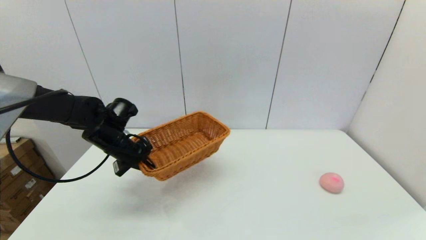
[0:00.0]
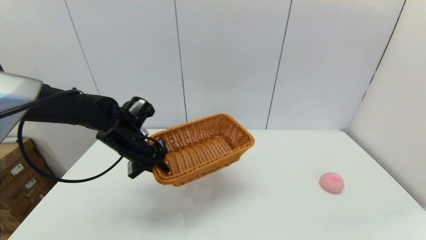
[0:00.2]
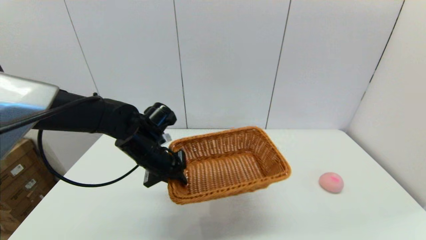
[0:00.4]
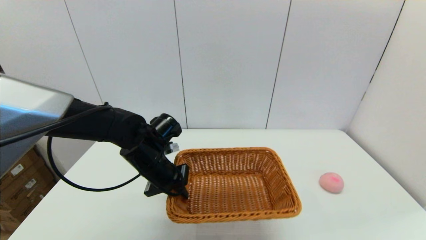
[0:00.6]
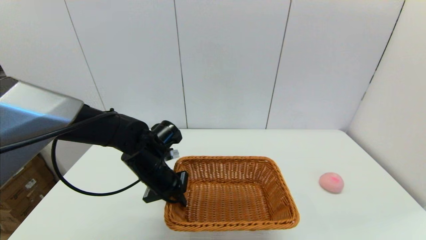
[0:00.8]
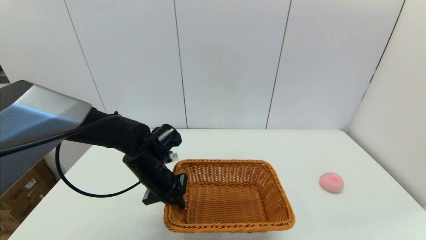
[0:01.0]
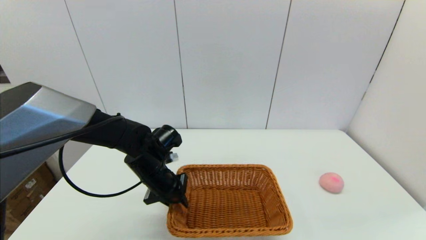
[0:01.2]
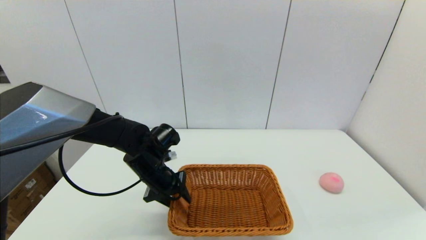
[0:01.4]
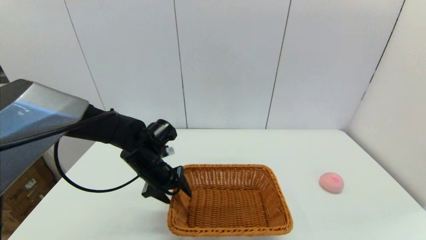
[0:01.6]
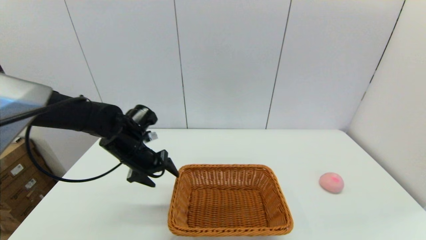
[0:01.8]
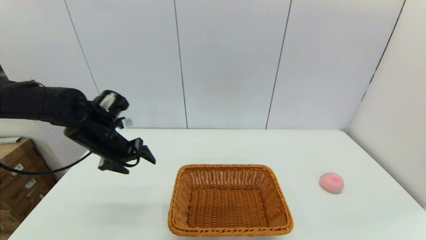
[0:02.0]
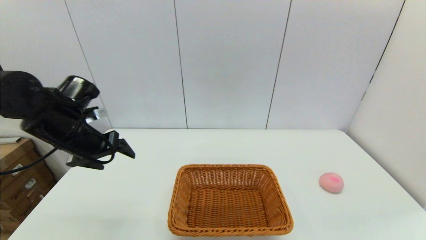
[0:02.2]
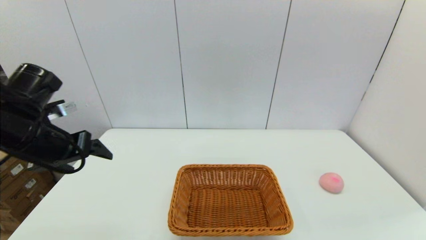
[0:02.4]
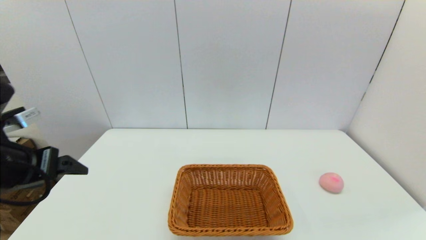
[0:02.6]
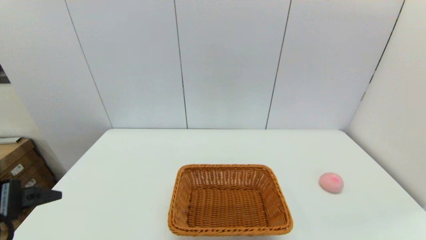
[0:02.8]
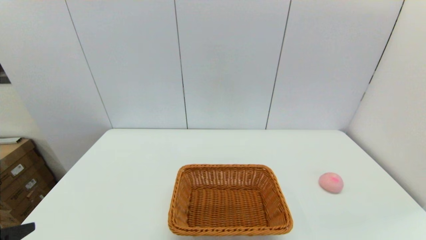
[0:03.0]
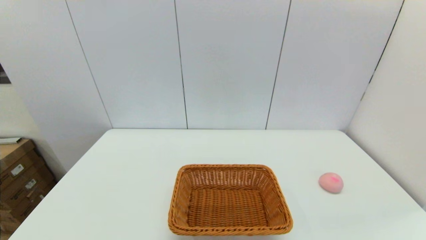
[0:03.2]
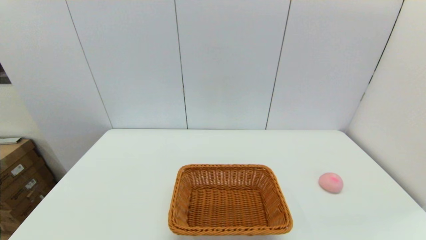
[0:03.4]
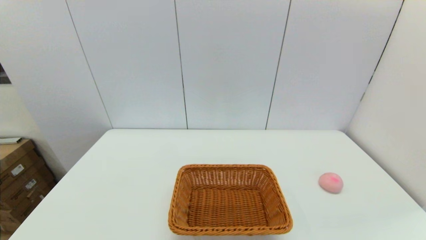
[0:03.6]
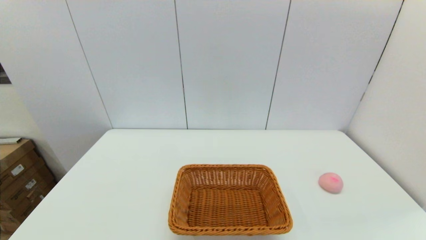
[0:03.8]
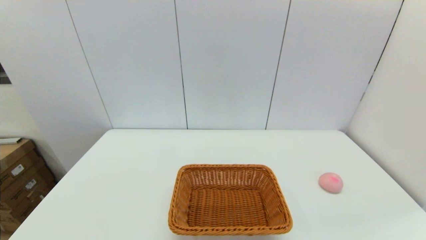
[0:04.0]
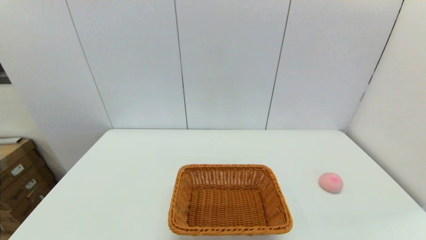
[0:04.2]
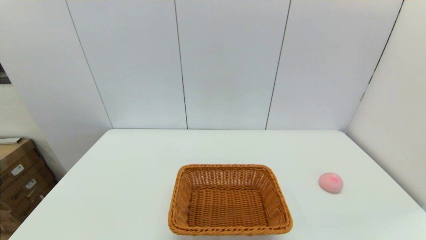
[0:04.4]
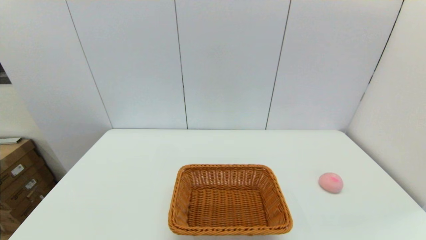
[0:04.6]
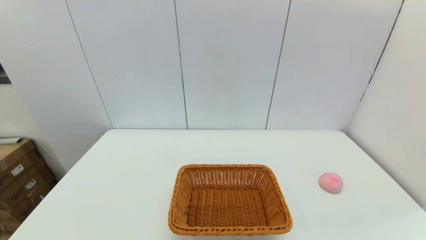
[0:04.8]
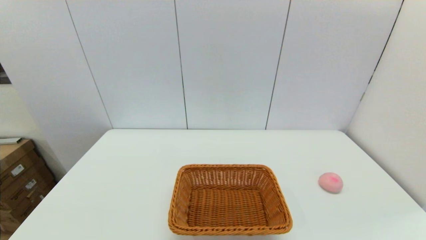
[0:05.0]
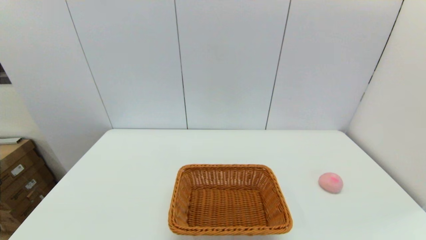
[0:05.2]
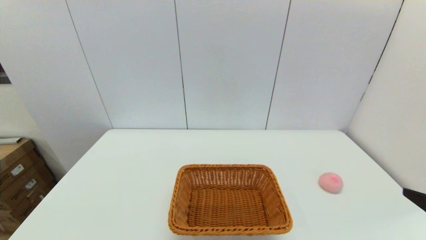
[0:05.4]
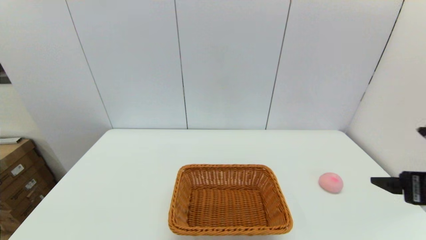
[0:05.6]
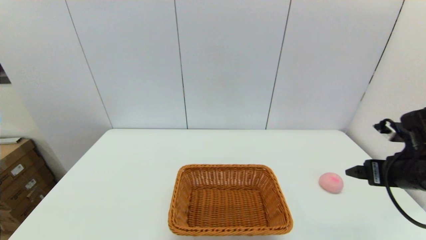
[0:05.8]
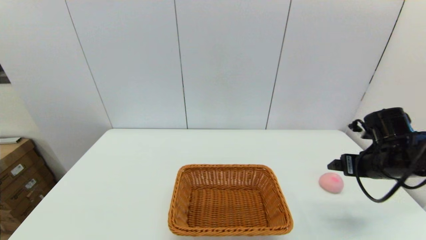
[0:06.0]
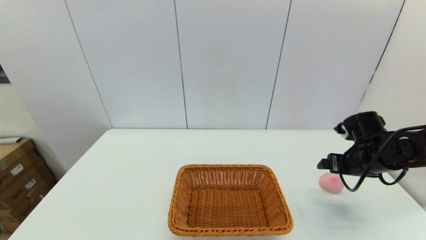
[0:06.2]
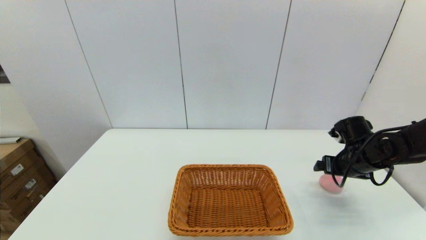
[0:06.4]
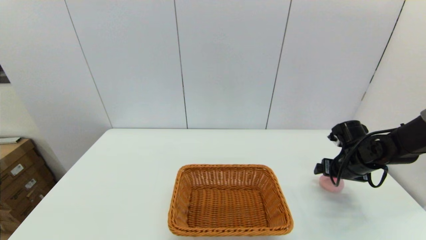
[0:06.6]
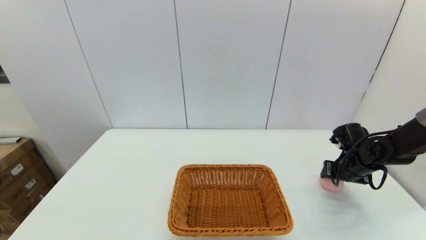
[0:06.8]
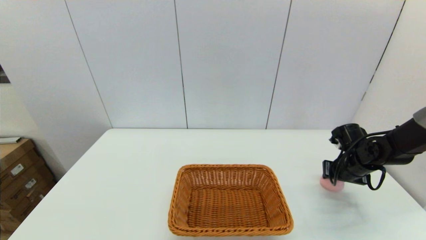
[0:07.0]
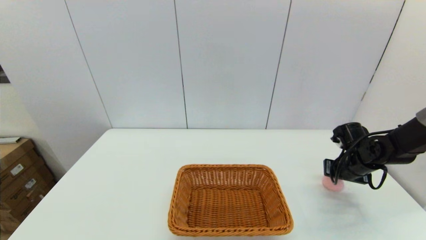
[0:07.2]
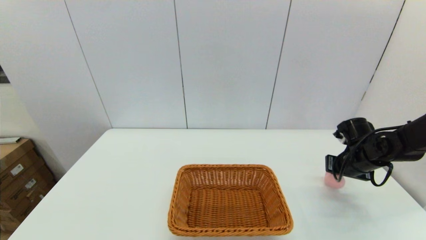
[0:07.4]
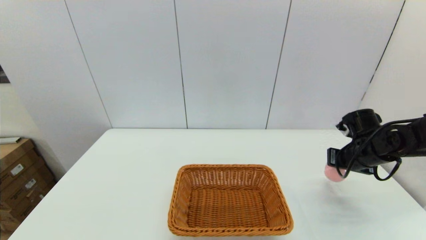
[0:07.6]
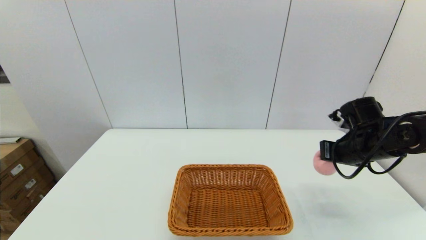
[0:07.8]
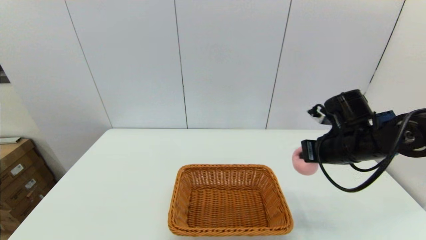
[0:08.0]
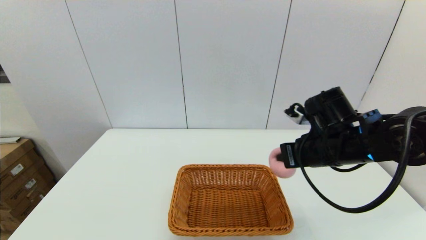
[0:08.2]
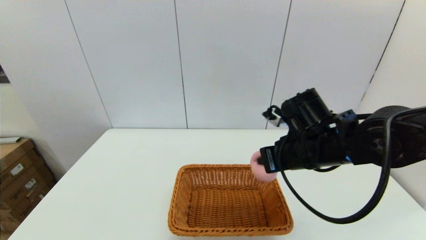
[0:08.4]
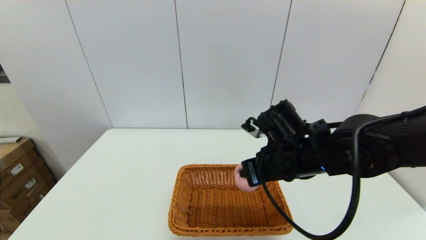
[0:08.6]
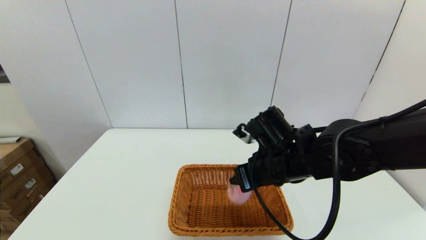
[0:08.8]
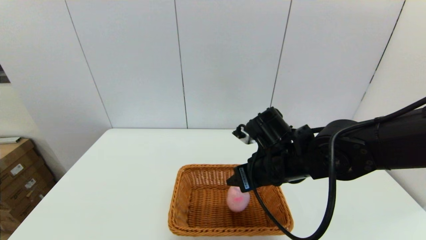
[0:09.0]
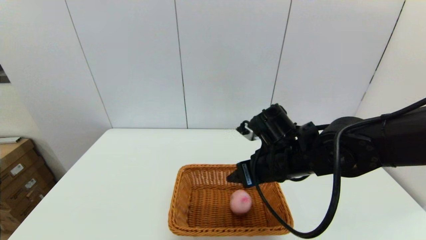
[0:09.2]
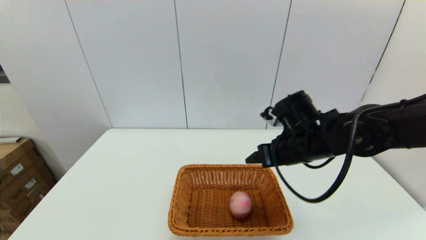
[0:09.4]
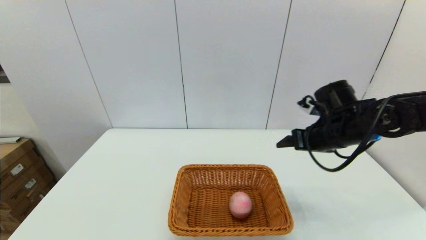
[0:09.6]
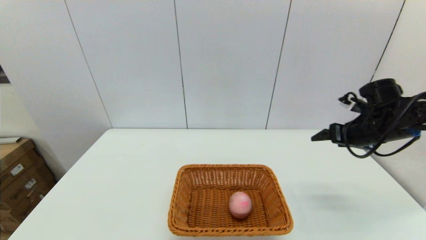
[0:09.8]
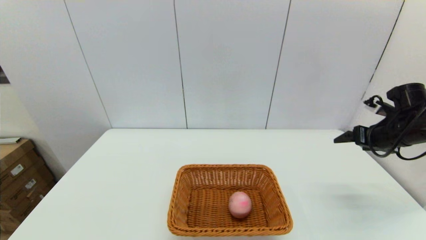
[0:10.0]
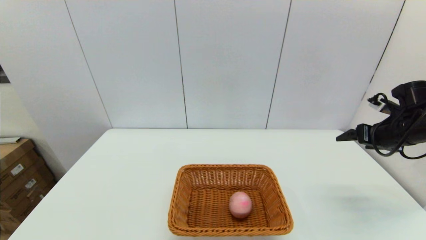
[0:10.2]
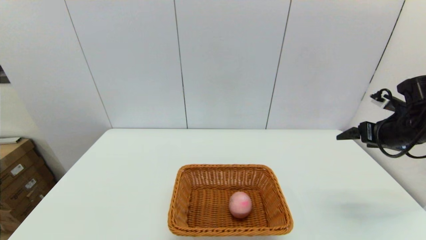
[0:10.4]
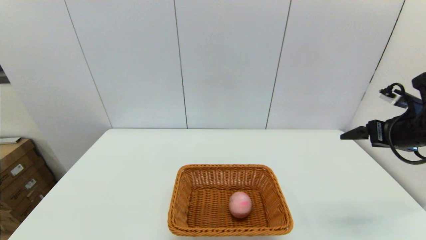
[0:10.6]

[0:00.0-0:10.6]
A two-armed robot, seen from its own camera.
Step, 0:00.0 to 0:01.2: Place the light basket on the middle of the table with the left gripper.
Step, 0:01.4 to 0:07.0: Grasp the peach with the right gripper.
Step, 0:07.4 to 0:09.0: Place the peach into the light basket with the right gripper.
0:00.0 to 0:01.6: The left gripper shifts approximately 5 cm to the right, and opens.
0:01.6 to 0:03.0: The left gripper heads backward and to the left, covering about 30 cm.
0:04.6 to 0:06.0: The right gripper travels forward by approximately 30 cm.
0:06.0 to 0:07.6: The right gripper heads forward, covering about 5 cm, goes downward and returns, approximately 10 cm each way, and closes its fingers.
0:07.6 to 0:09.0: The right gripper goes about 25 cm to the left, and opens.
0:09.0 to 0:10.6: The right gripper shifts about 25 cm to the right.

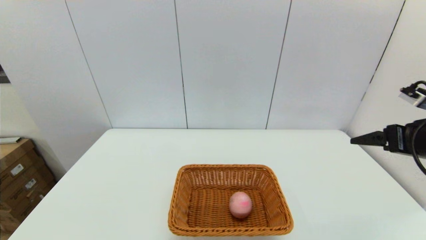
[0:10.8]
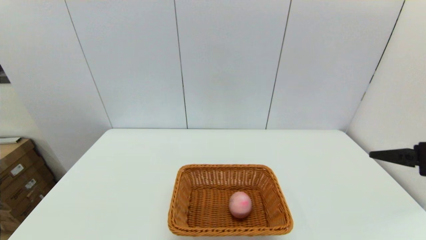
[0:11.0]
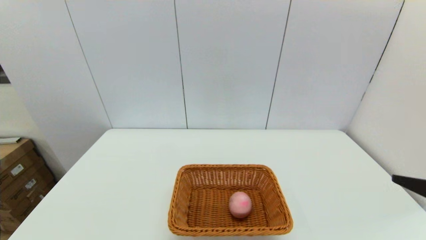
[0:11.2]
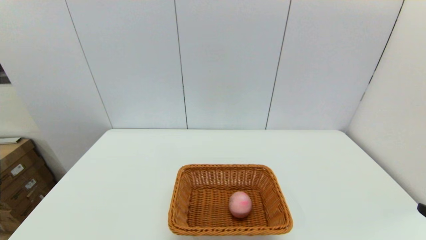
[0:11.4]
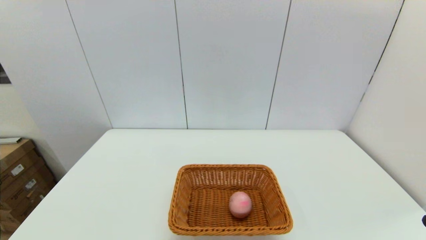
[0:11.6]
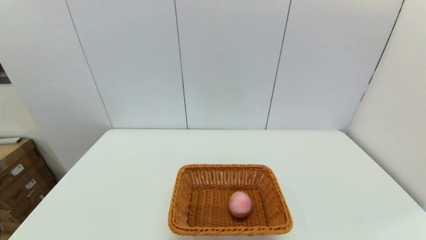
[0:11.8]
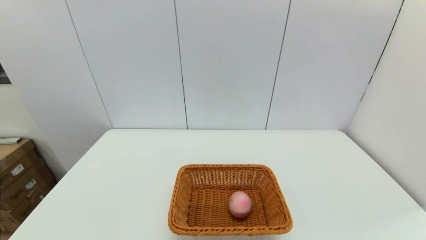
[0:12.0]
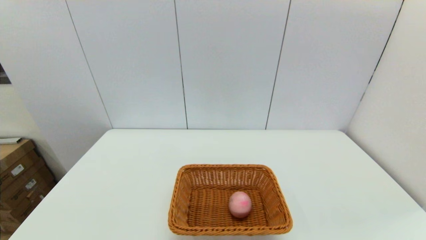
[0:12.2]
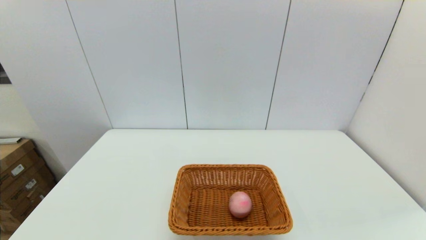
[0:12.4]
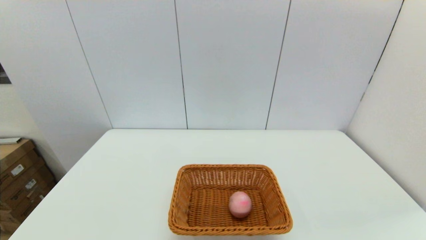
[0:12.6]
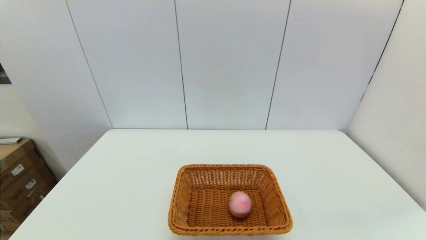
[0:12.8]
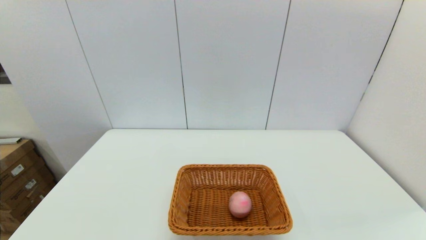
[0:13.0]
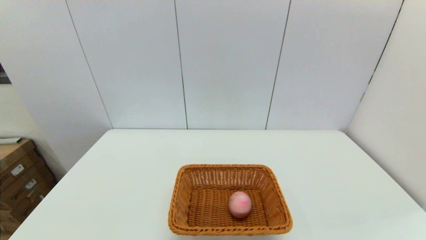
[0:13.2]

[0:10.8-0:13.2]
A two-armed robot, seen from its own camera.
0:10.8 to 0:12.0: The right gripper heads backward and downward, covering roughly 25 cm.

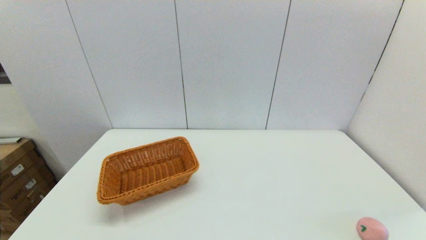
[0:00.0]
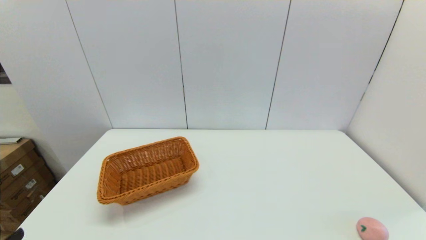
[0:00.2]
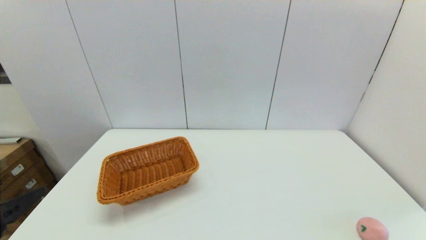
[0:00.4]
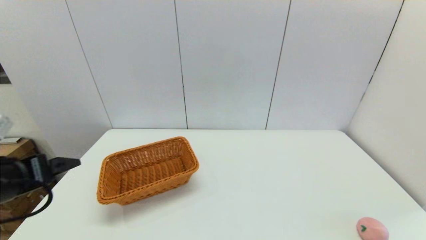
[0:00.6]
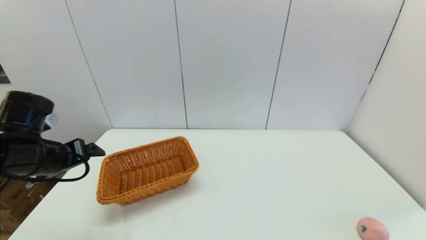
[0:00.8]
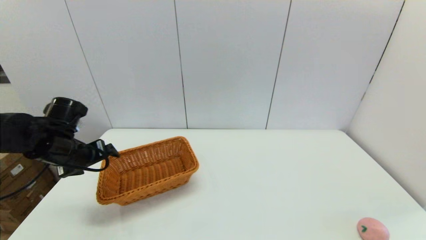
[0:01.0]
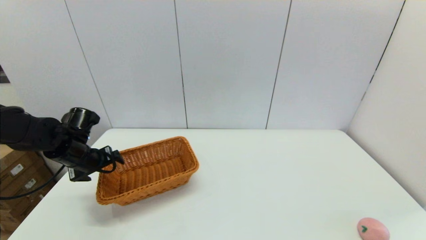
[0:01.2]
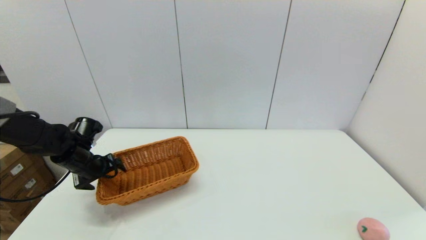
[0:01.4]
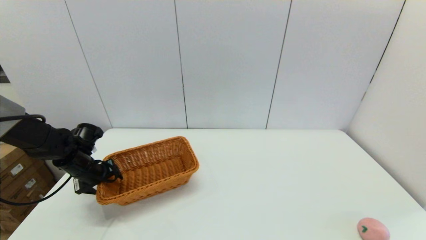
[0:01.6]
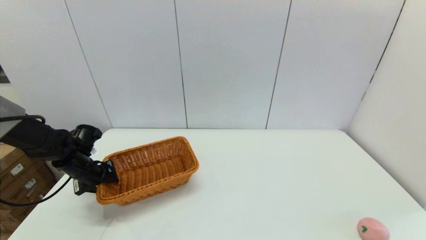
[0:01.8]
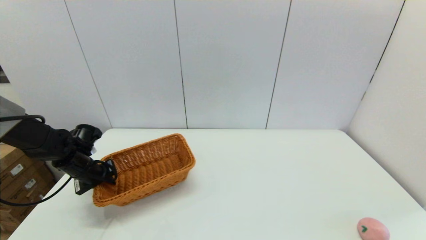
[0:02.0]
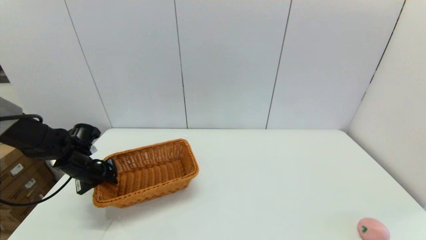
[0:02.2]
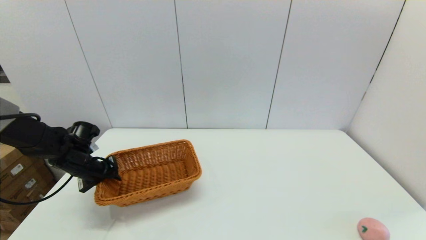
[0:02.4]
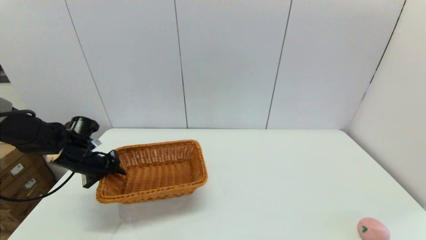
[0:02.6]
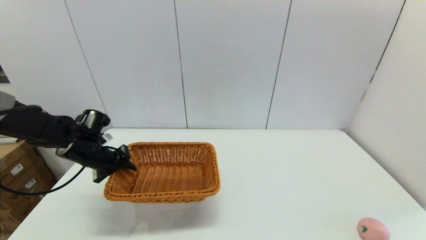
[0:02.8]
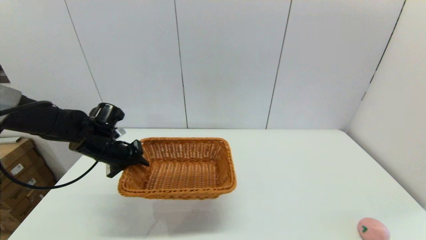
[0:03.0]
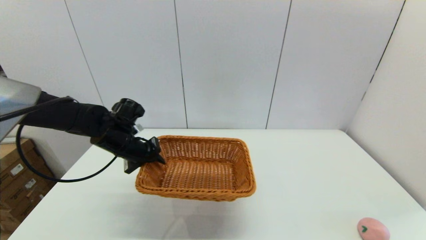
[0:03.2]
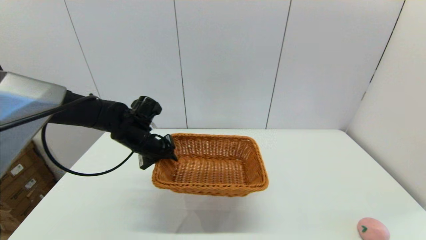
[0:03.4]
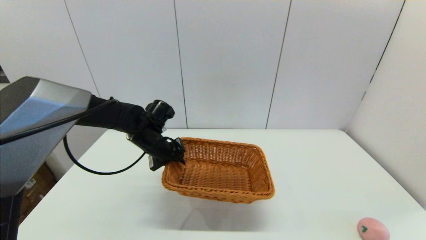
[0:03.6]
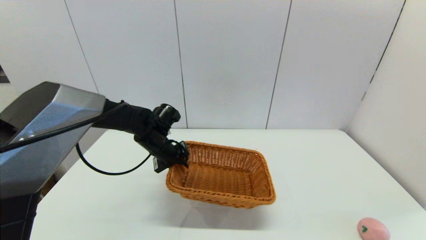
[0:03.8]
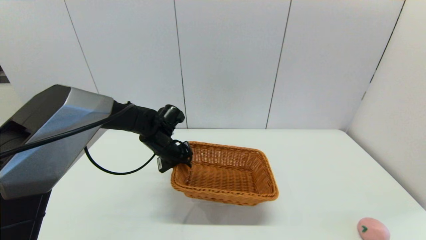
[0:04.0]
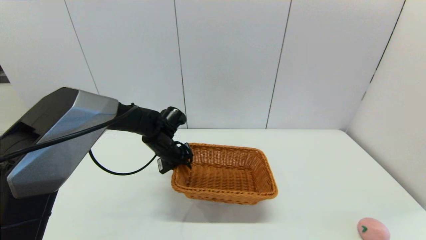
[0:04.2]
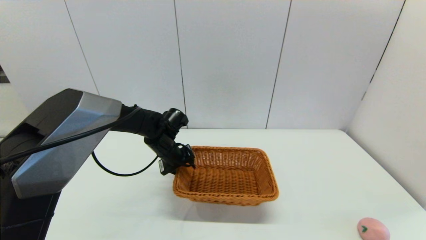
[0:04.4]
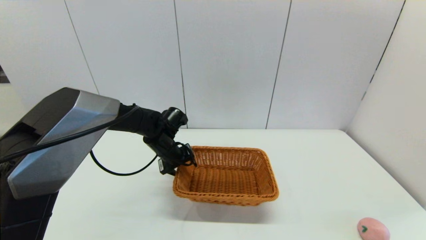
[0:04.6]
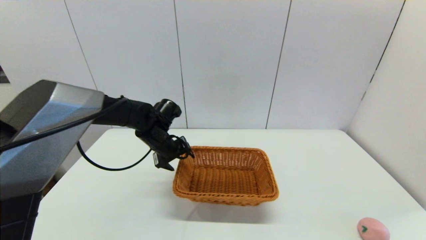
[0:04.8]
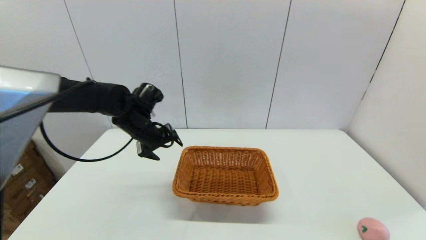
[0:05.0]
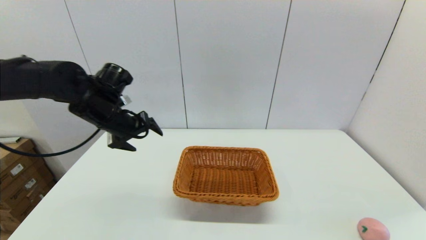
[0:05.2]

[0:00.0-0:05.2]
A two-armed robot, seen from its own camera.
Step, 0:00.0 to 0:02.4: Grasp the light basket with the left gripper.
Step, 0:02.6 to 0:04.6: Place the light basket on the middle of the table with the left gripper.
0:00.0 to 0:01.8: The left gripper shifts approximately 35 cm forward, and closes its fingers.
0:01.8 to 0:03.4: The left gripper is displaced to the right by some 15 cm.
0:03.4 to 0:05.2: The left gripper heads upward and to the left, covering some 10 cm, and opens its fingers.
